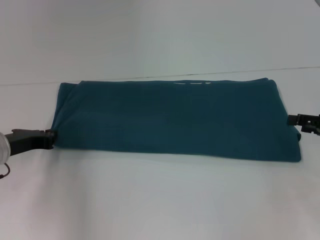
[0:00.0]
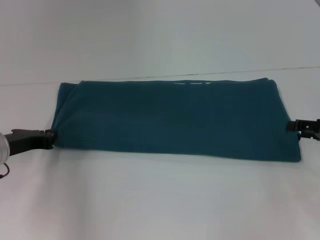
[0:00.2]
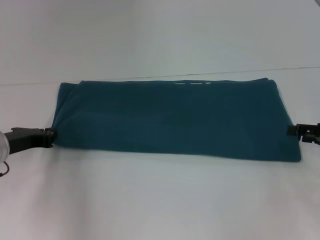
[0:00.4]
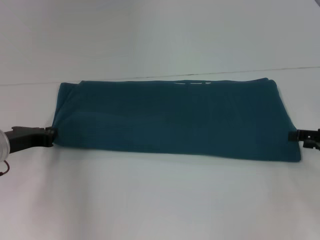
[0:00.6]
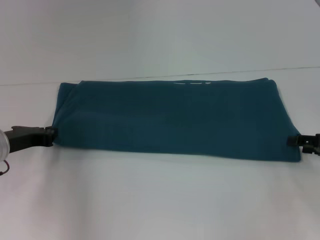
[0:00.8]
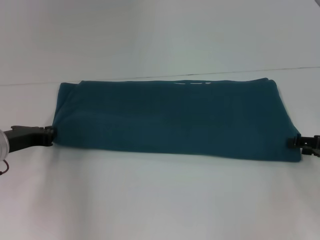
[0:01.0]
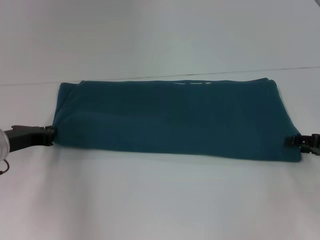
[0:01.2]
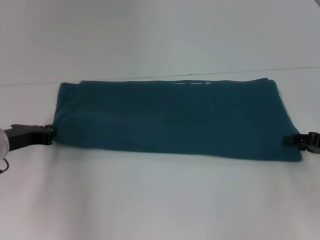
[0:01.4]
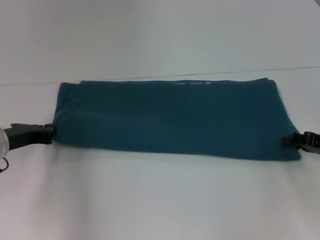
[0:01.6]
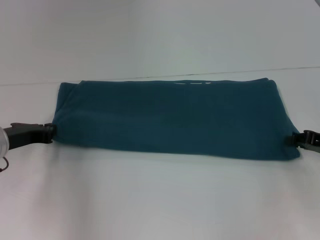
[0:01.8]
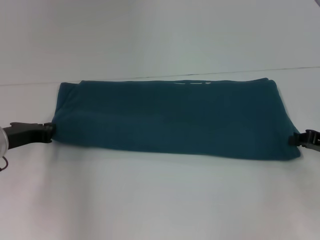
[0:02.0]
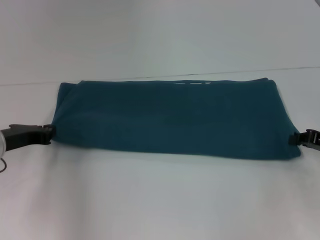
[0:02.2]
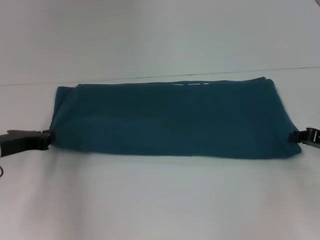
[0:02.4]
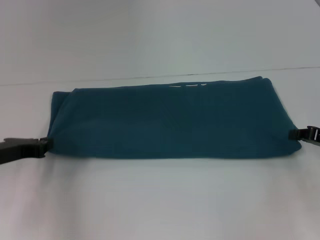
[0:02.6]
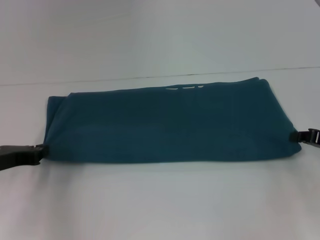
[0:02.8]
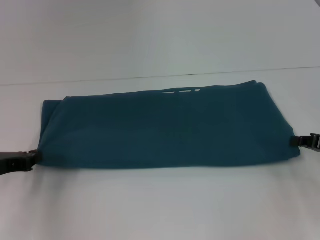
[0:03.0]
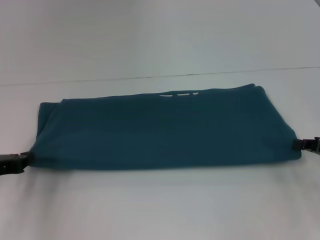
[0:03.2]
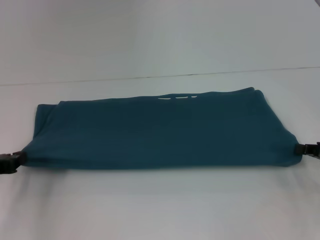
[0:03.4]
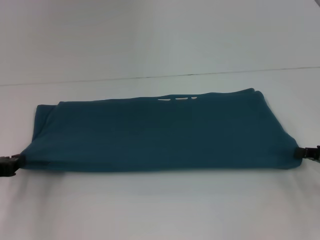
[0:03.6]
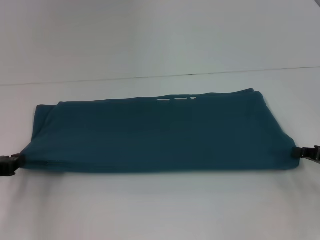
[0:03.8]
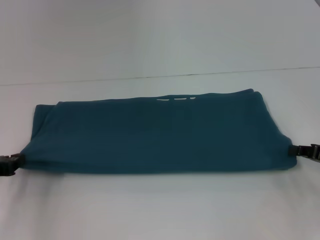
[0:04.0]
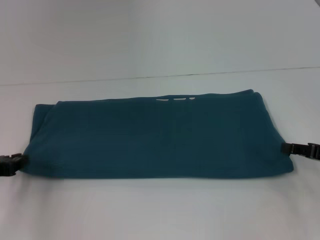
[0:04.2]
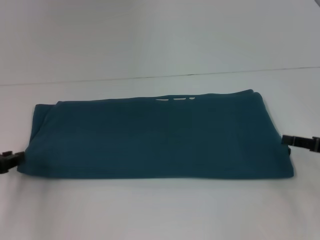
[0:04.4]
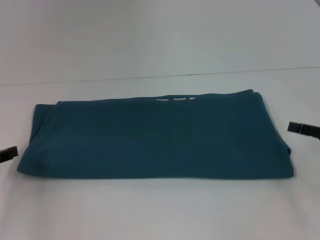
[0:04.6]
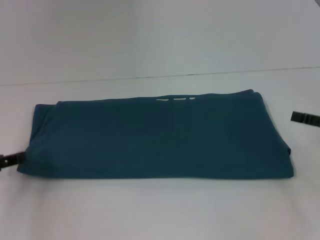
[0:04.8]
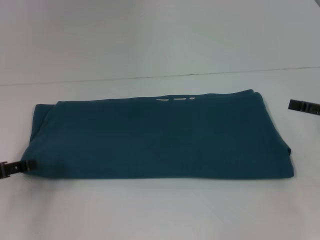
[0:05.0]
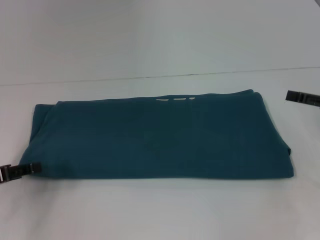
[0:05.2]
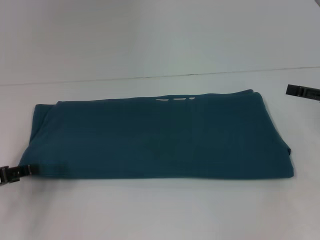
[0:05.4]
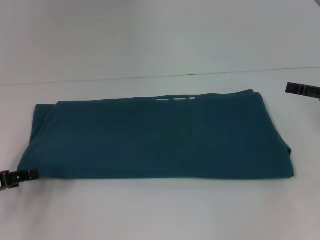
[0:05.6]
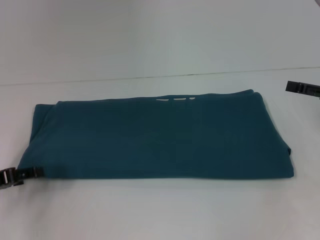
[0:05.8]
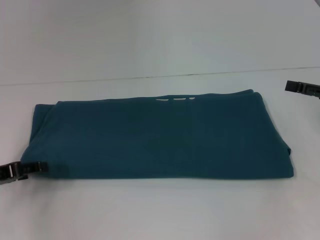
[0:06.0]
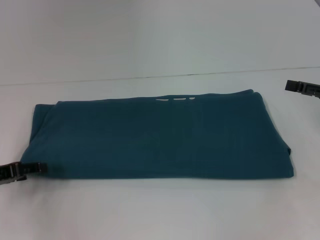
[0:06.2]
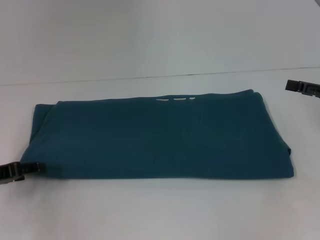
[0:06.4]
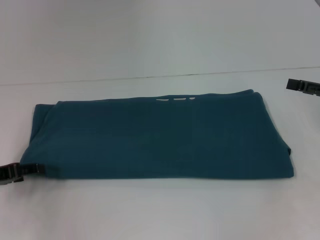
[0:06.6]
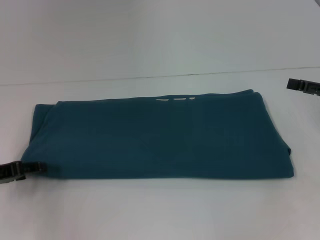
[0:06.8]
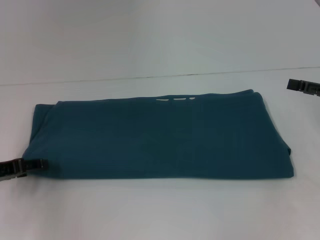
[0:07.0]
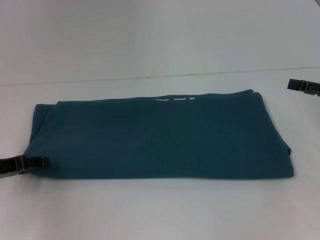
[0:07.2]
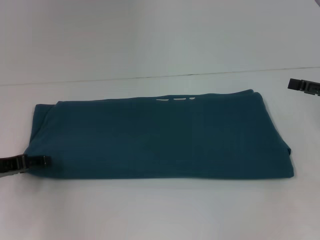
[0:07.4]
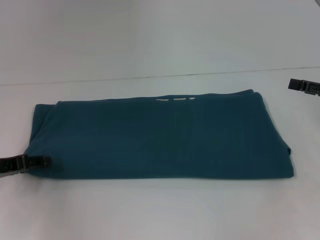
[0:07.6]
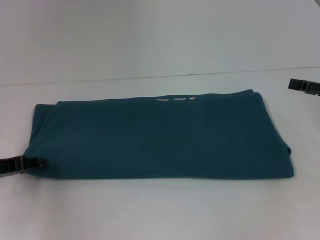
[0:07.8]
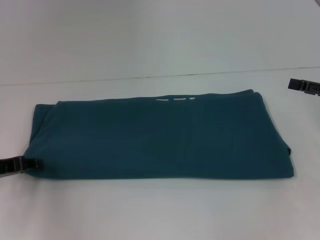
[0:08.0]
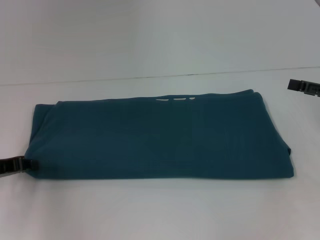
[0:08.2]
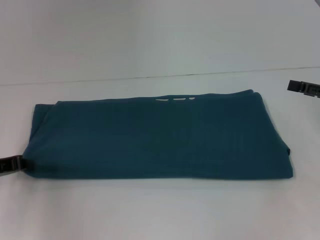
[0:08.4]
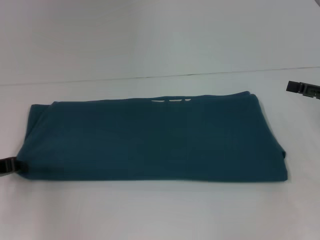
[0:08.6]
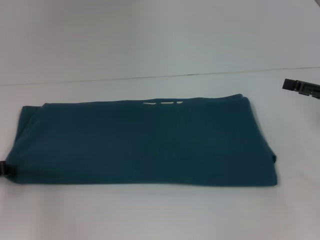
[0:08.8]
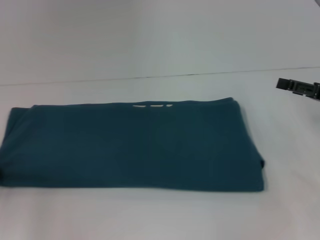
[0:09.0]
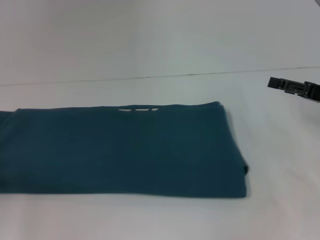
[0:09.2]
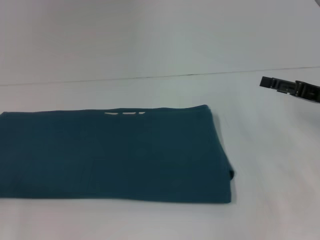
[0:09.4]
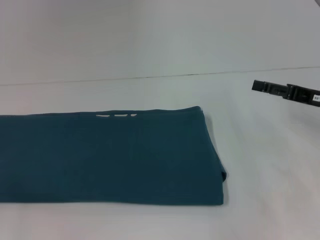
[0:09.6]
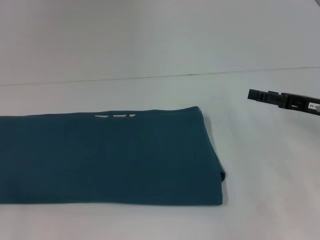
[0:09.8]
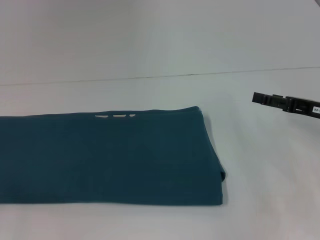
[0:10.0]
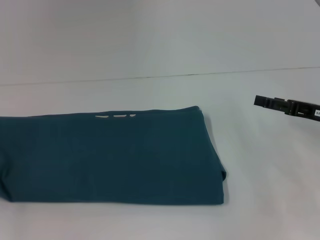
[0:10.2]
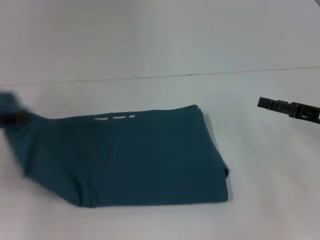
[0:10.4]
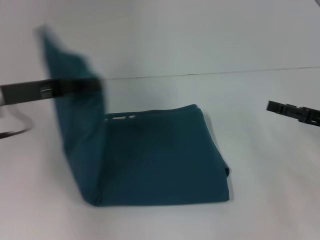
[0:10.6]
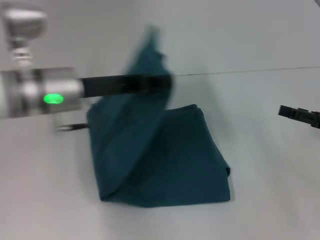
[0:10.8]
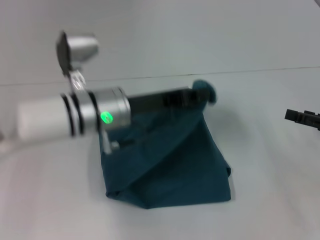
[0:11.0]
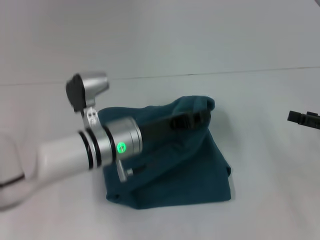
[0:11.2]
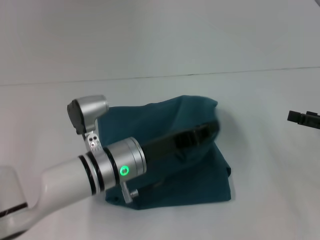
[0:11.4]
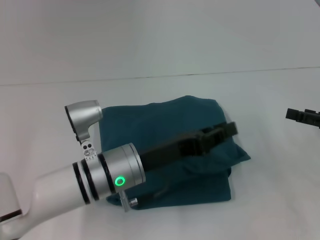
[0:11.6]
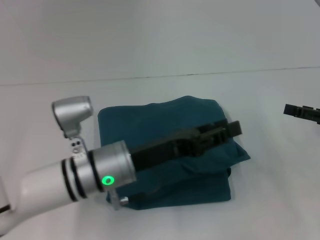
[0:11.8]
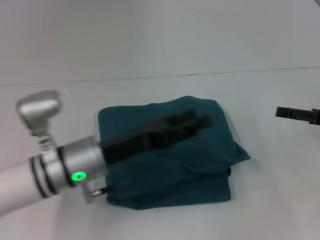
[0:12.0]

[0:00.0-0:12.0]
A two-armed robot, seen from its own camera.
Step, 0:00.0 to 0:11.6: Fold the clothes to the left.
0:00.0 to 0:01.6: The grippers move only a little.
0:01.6 to 0:03.0: The left gripper goes about 5 cm backward; the right gripper closes.
0:03.0 to 0:04.4: There are only small adjustments of the grippers.
0:04.4 to 0:06.0: The left gripper opens up. Meanwhile the right gripper moves upward, about 5 cm, and opens its fingers.
0:06.0 to 0:07.6: The grippers move only a little.
0:07.6 to 0:09.0: The left gripper closes.
0:09.0 to 0:10.4: The left gripper travels upward by approximately 5 cm, and reaches some 5 cm to the left, then returns.
0:10.4 to 0:12.0: The left gripper goes about 20 cm to the right, and opens.

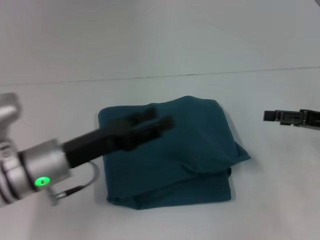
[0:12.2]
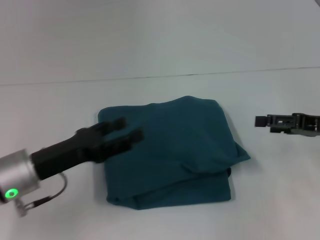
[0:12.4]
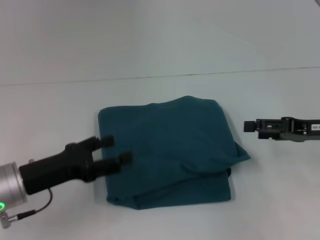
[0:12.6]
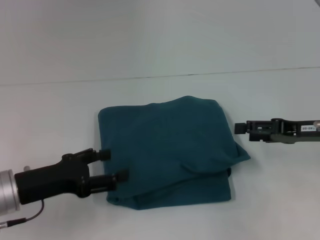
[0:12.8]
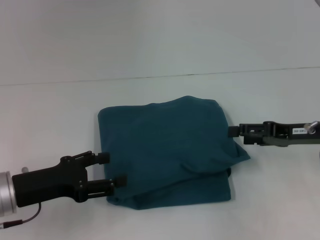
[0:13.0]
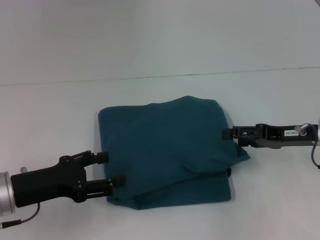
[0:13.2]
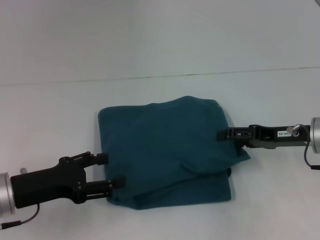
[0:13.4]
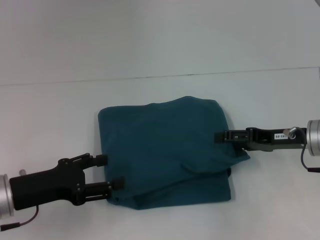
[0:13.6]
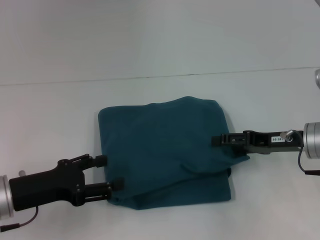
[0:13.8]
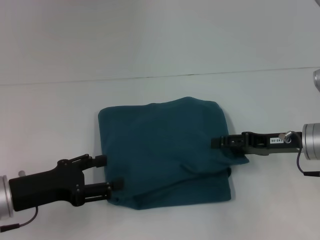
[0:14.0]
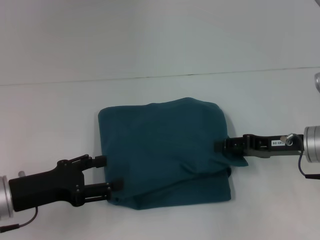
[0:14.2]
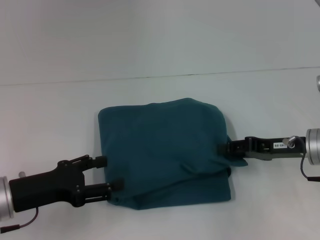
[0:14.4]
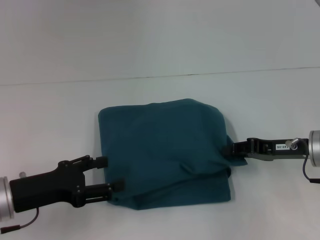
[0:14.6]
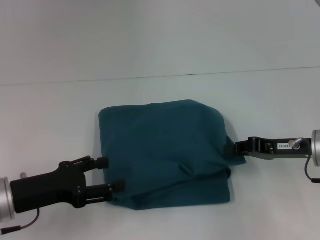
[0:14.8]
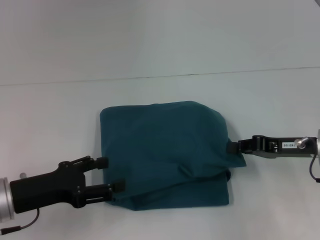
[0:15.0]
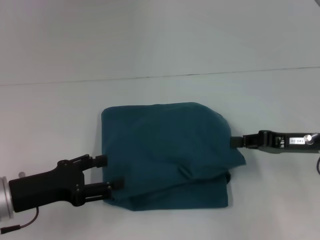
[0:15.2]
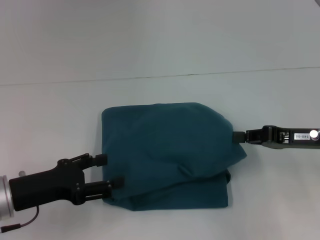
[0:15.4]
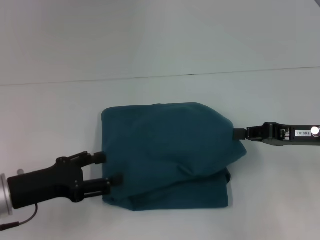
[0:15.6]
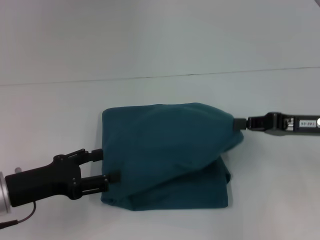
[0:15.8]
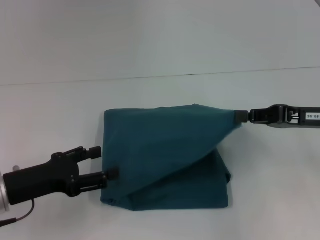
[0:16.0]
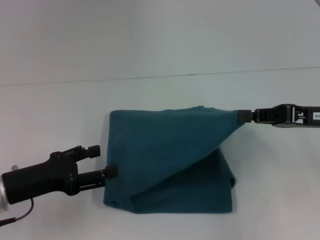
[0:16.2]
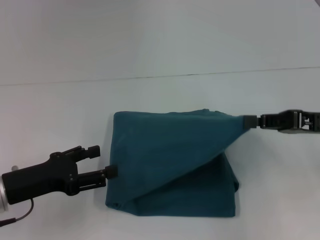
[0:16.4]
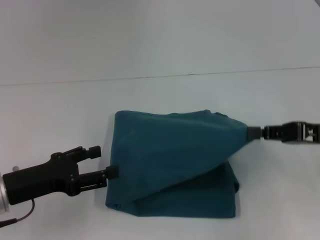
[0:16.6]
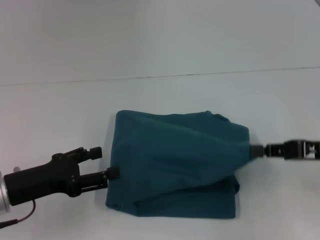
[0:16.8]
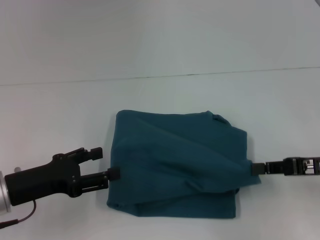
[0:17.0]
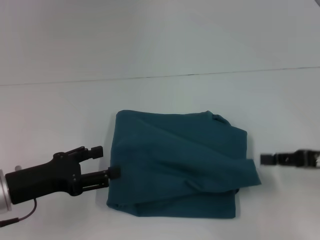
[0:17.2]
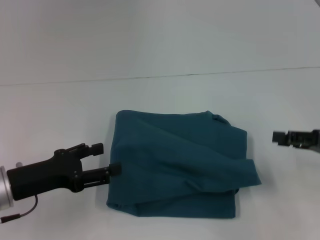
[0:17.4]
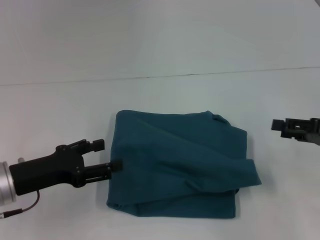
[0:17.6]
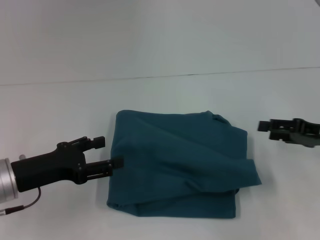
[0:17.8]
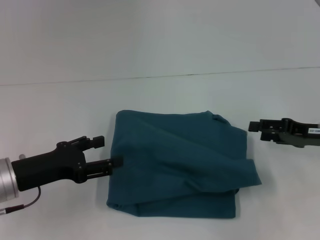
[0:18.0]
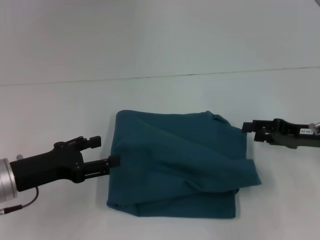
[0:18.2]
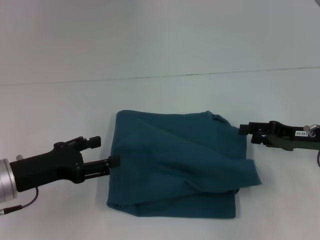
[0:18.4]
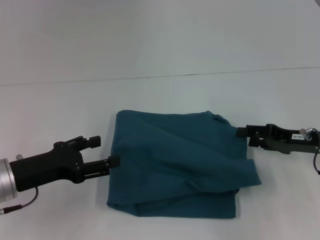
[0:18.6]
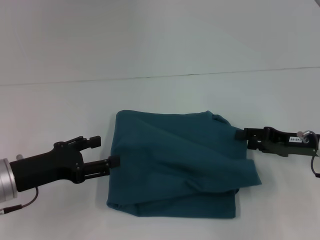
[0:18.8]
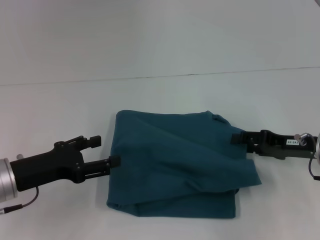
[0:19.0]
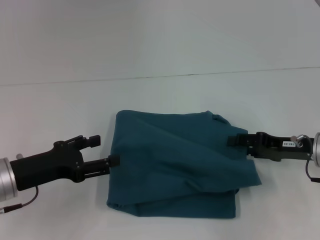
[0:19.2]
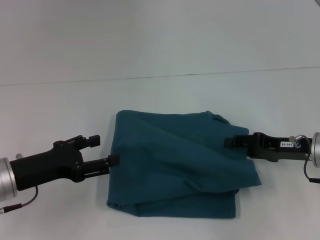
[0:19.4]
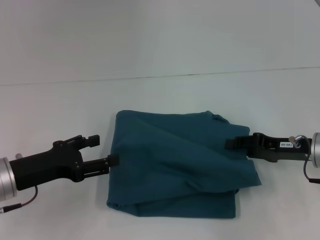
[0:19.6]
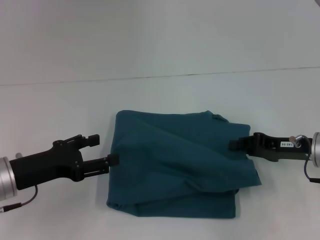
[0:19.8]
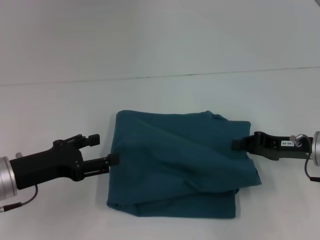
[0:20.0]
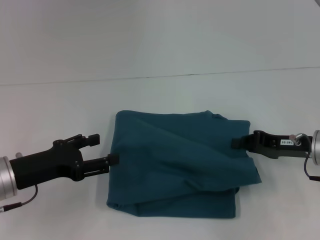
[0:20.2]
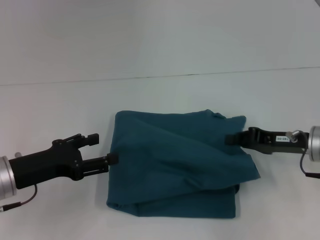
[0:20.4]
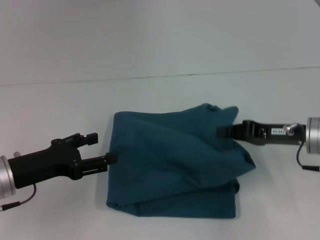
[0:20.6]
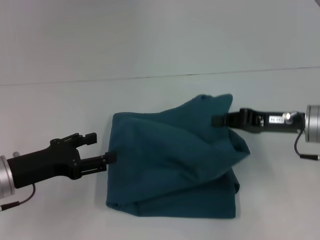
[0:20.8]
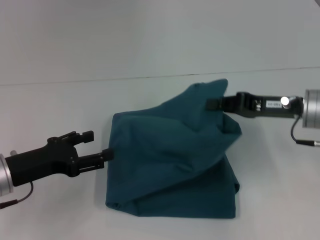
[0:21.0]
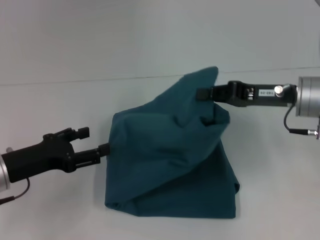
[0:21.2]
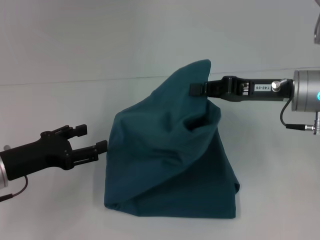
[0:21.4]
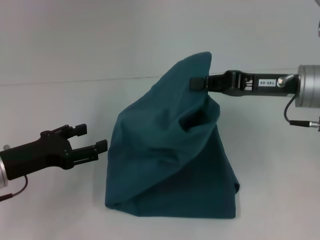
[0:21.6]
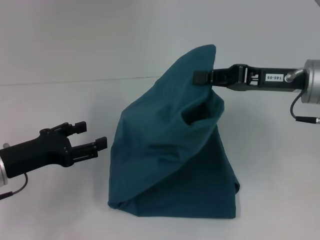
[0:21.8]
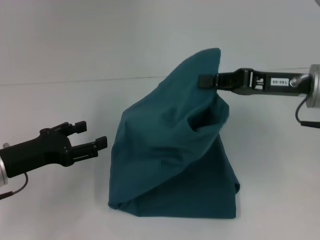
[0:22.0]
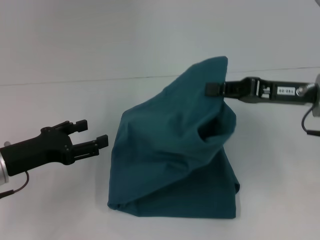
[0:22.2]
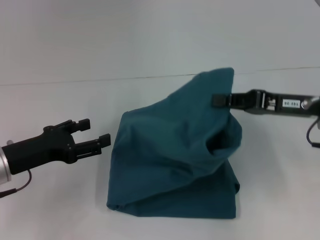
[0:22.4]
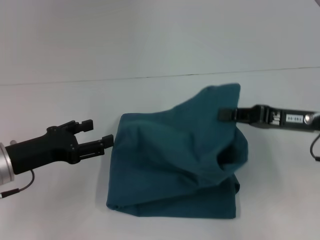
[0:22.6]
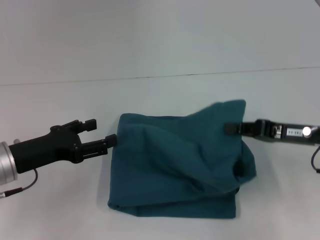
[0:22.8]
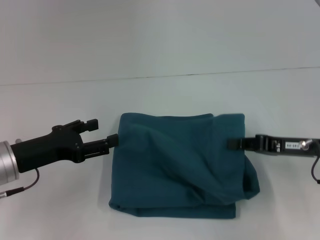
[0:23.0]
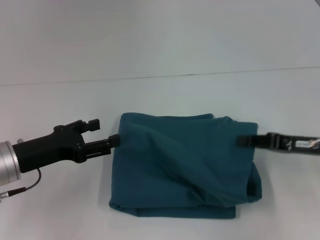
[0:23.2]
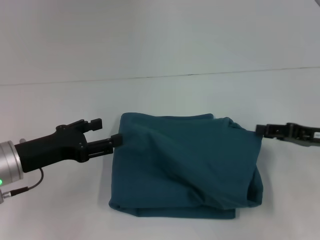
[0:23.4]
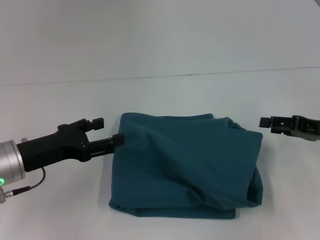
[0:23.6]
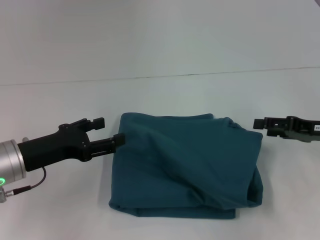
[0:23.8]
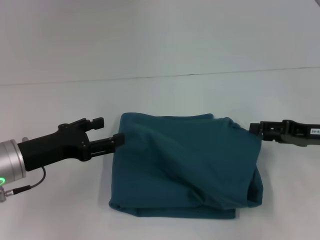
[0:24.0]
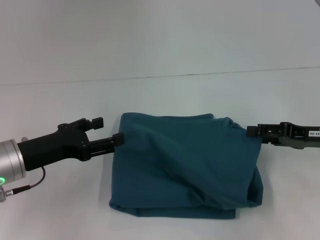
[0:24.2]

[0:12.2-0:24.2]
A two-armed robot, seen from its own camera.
0:12.2 to 0:13.8: The grippers both shift to the left by roughly 10 cm.
0:13.8 to 0:15.2: The right gripper closes.
0:15.2 to 0:16.6: The right gripper changes place by approximately 5 cm.
0:16.6 to 0:18.2: The right gripper goes roughly 5 cm downward, and opens.
0:18.2 to 0:19.8: The right gripper closes.
0:19.8 to 0:21.2: The right gripper goes about 10 cm upward.
0:21.2 to 0:22.6: The right gripper shifts by roughly 5 cm.
0:22.6 to 0:24.2: The right gripper shifts by about 5 cm, and opens its fingers.
